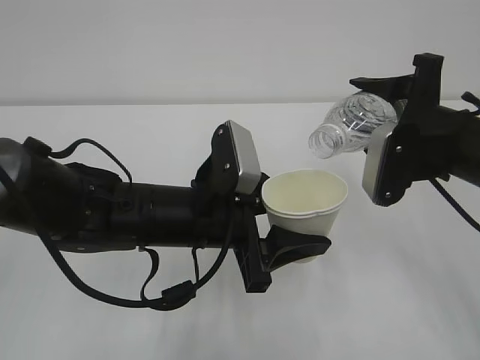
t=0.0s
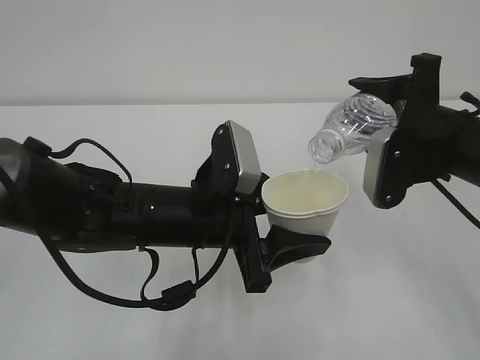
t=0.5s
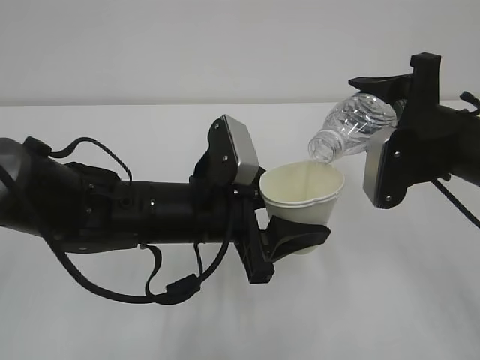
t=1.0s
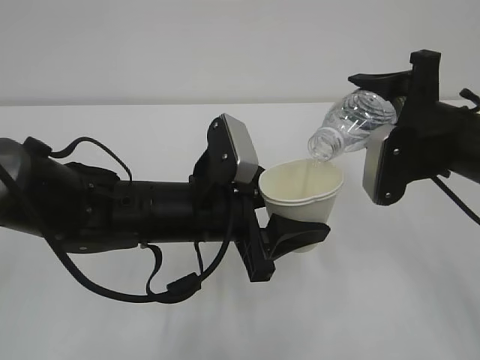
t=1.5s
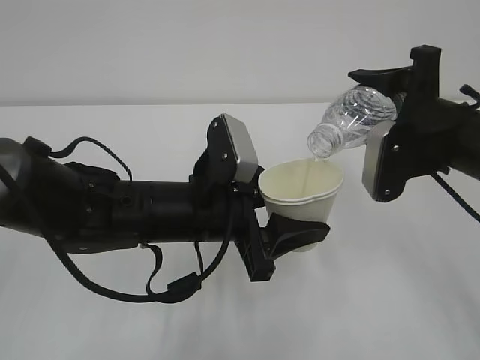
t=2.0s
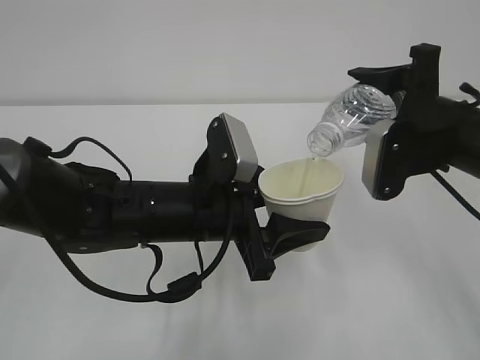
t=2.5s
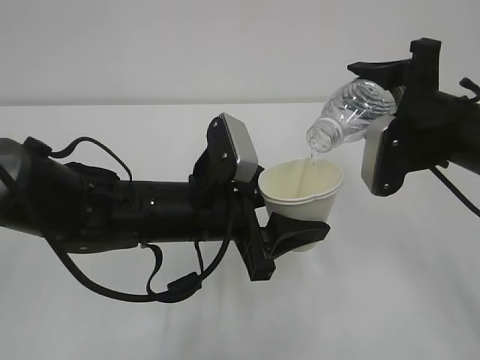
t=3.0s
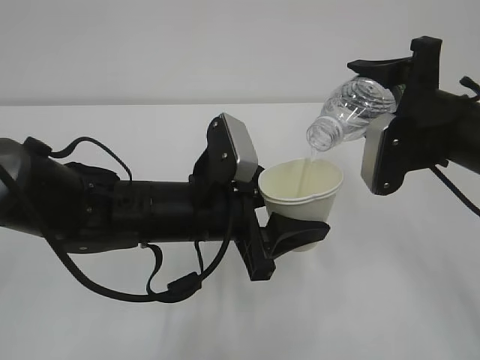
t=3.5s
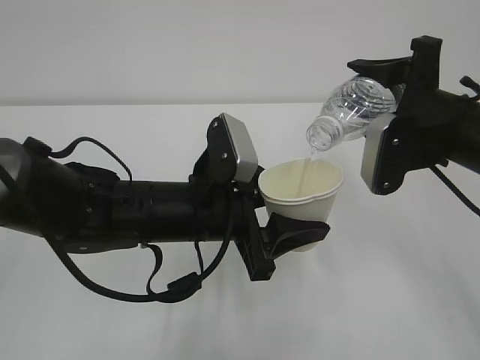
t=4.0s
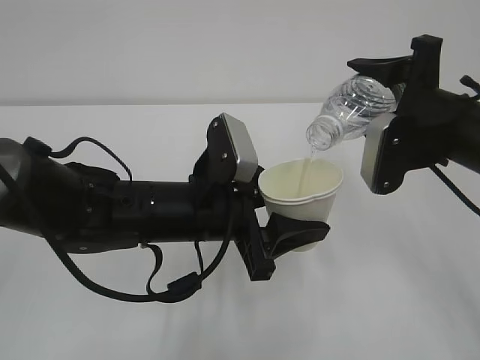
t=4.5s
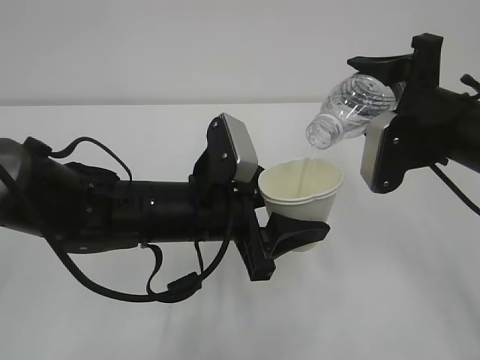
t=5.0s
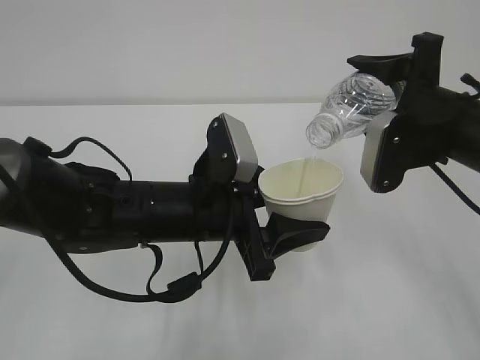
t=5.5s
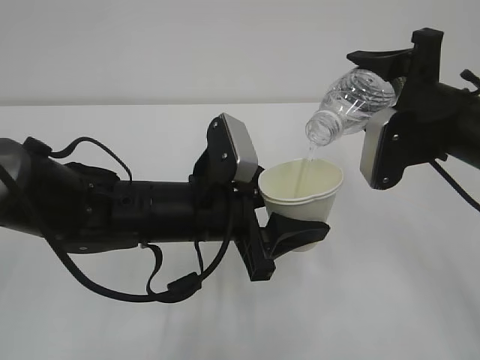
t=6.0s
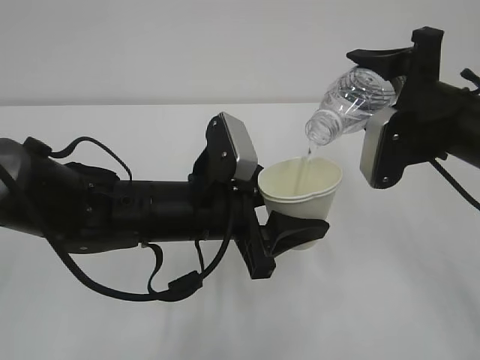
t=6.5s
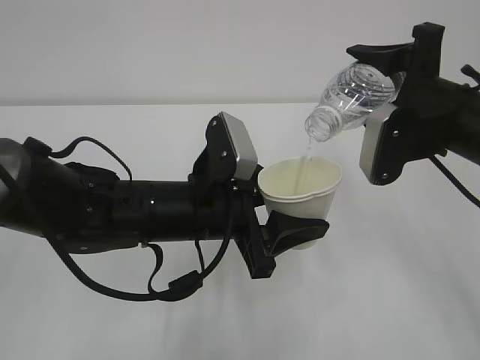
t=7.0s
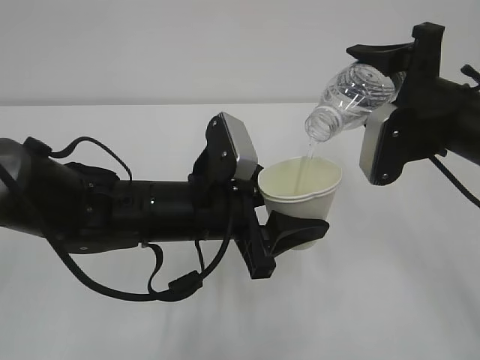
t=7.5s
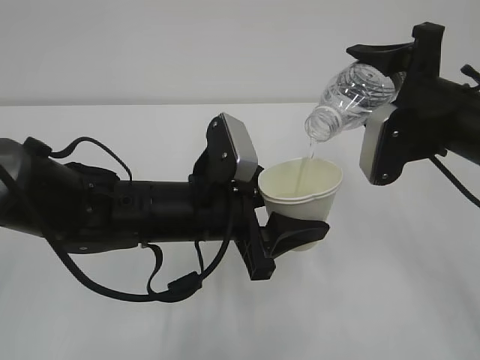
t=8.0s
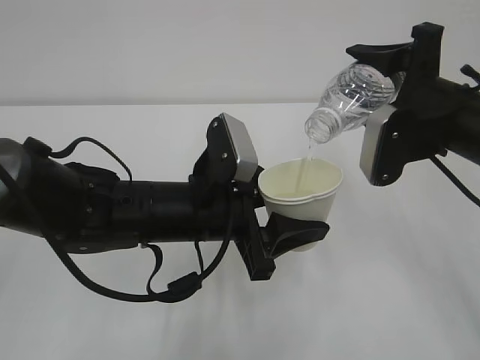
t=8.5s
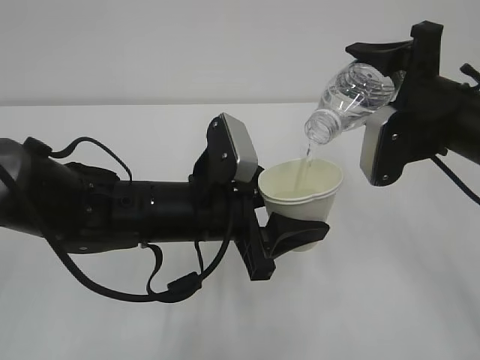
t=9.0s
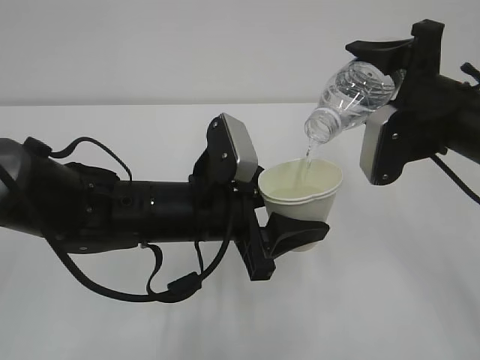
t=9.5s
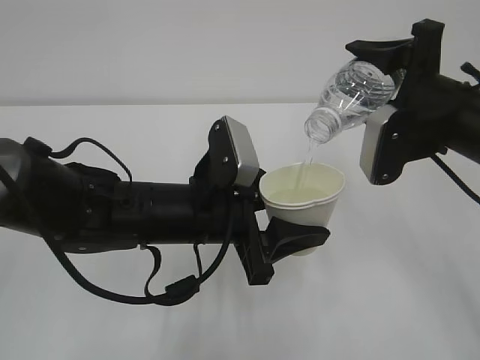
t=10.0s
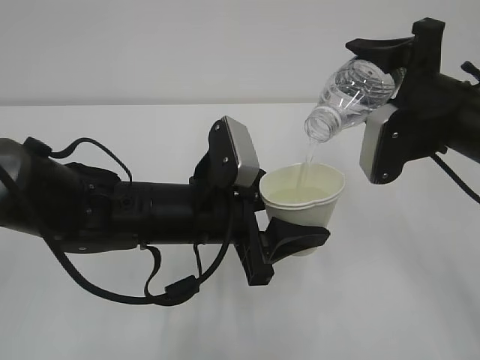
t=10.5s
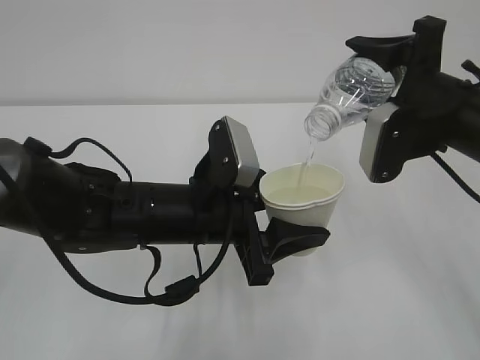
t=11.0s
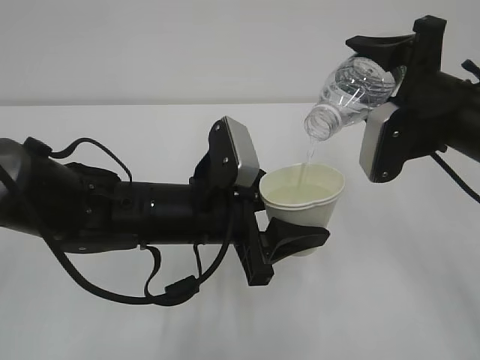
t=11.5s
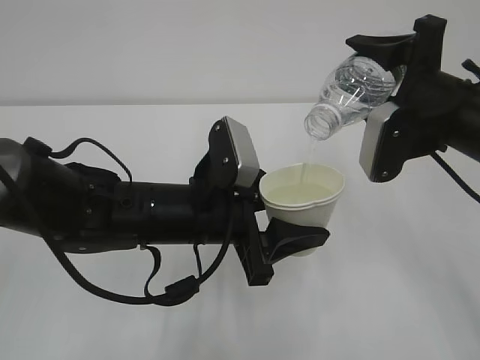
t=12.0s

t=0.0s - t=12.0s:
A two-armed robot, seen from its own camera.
t=0.0s - t=2.0s: The two grippers keep their place.
t=2.0s - t=6.0s: Both grippers stay about where they are.
t=6.0s - t=10.0s: Both grippers stay put.
t=10.0s - t=12.0s: Both grippers stay about where they are.

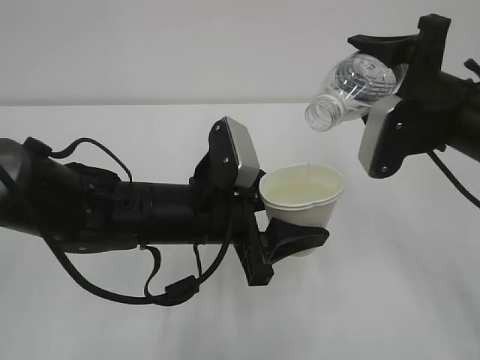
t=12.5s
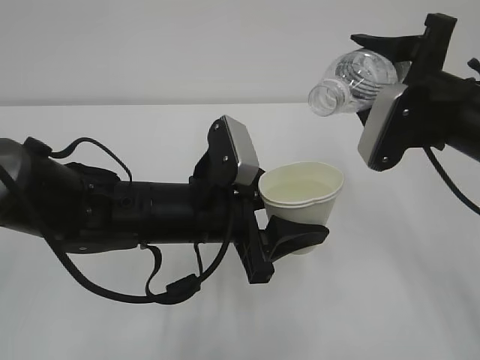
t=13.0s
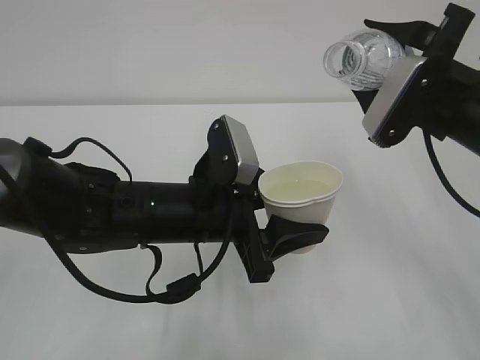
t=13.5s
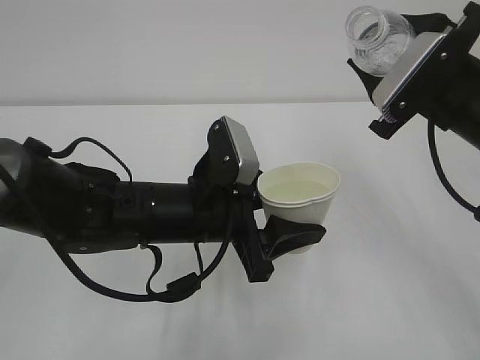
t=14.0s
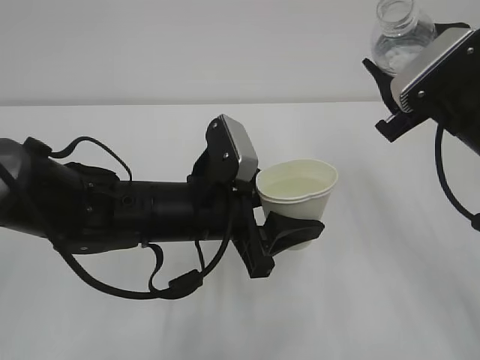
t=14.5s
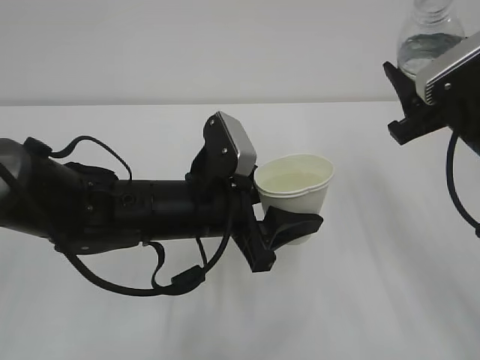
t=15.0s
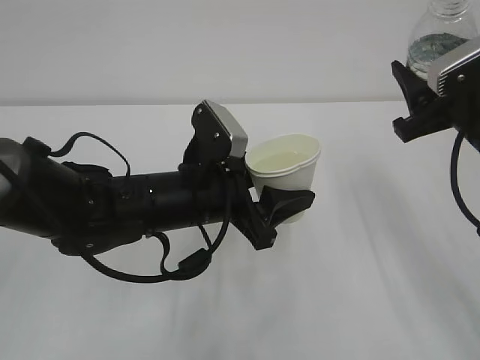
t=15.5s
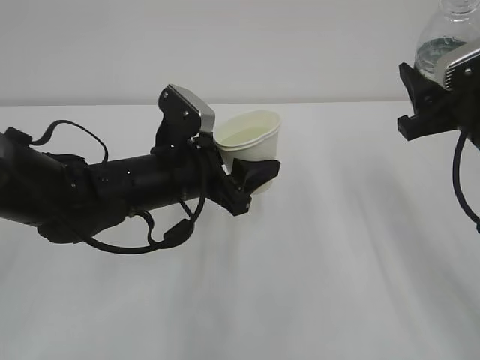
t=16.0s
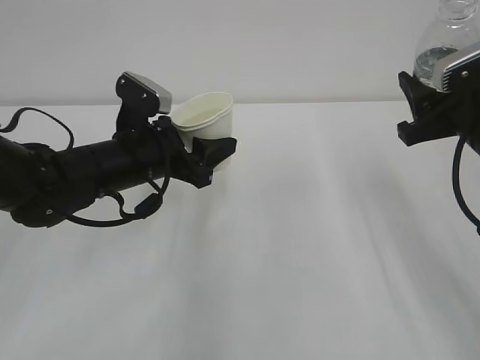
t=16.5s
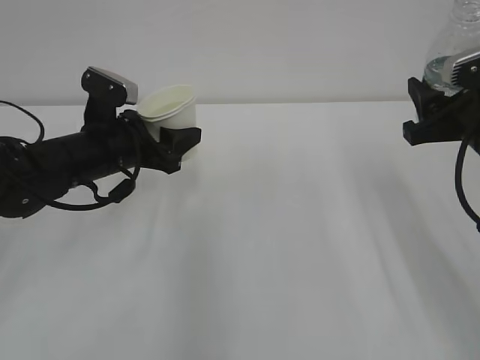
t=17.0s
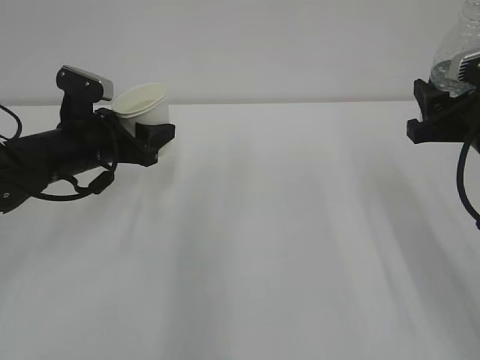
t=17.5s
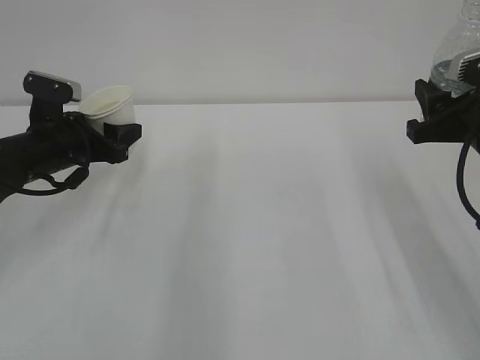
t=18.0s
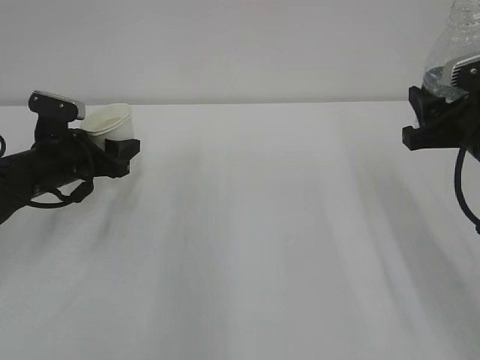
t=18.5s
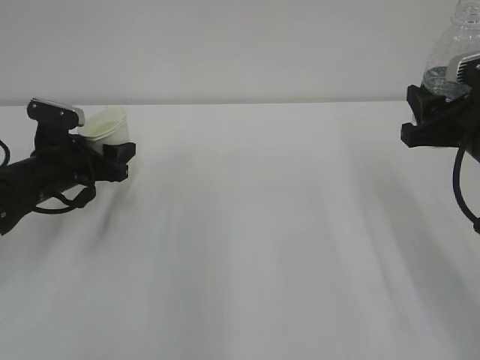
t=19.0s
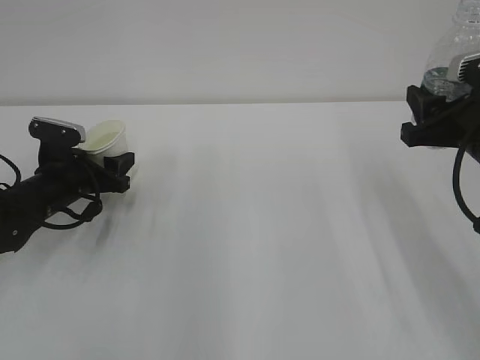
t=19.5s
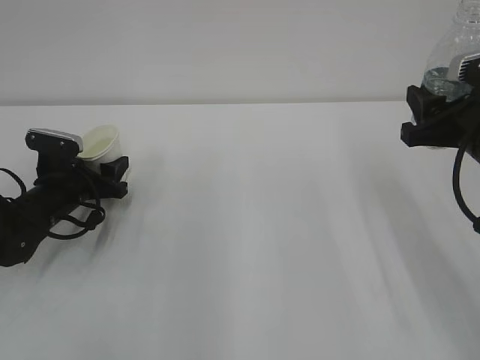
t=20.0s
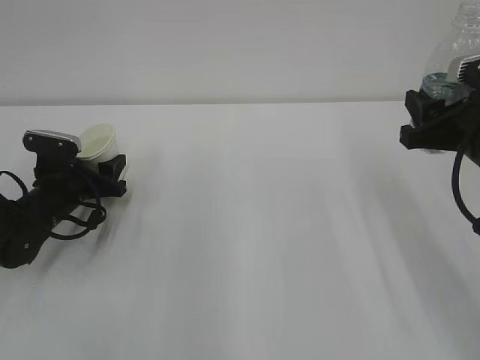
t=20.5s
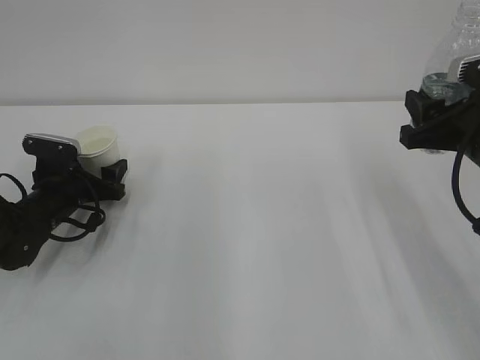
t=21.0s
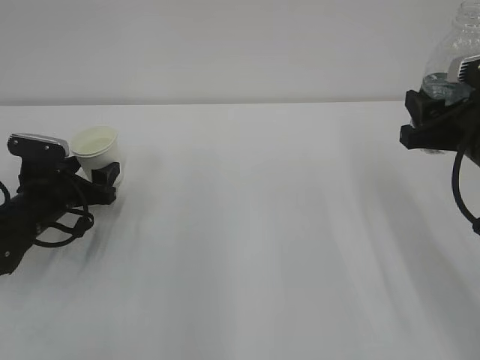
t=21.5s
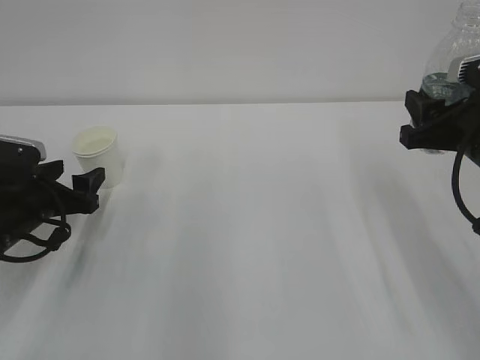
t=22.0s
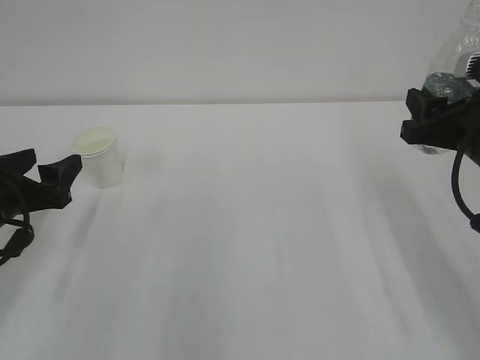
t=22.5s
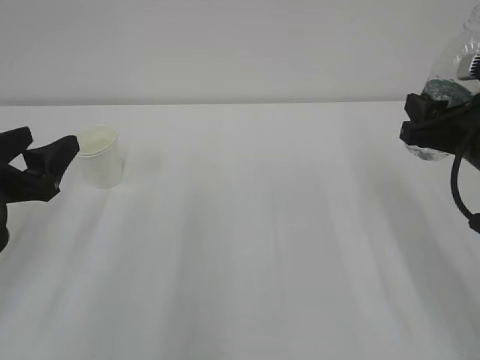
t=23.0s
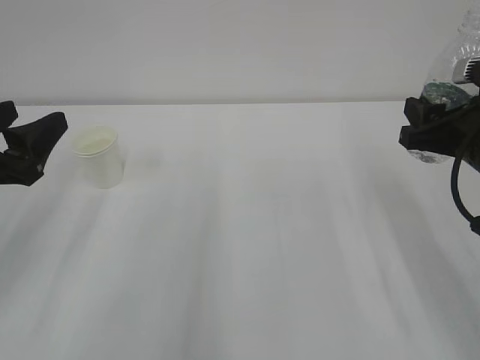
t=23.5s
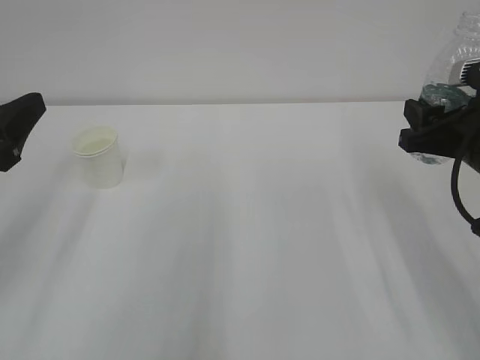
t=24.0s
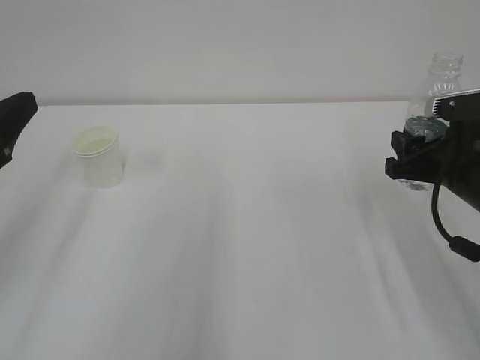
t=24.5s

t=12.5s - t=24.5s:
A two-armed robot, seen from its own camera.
t=14.5s - t=16.5s: The left gripper is displaced to the left and forward by roughly 10 cm.
t=16.5s - t=18.5s: The left gripper goes approximately 10 cm to the left.
t=18.5s - t=20.5s: The left gripper heads downward, covering approximately 5 cm.
t=20.5s - t=22.5s: The left gripper travels backward and upward by approximately 15 cm, and opens up.
t=22.5s - t=24.5s: The left gripper shifts some 10 cm upward and backward.

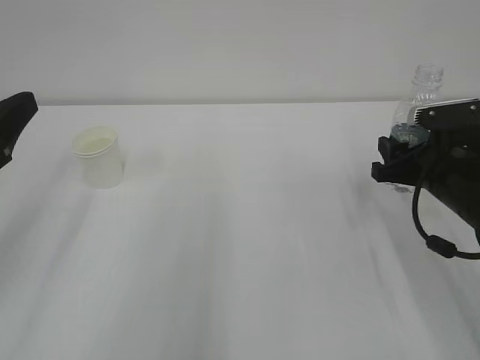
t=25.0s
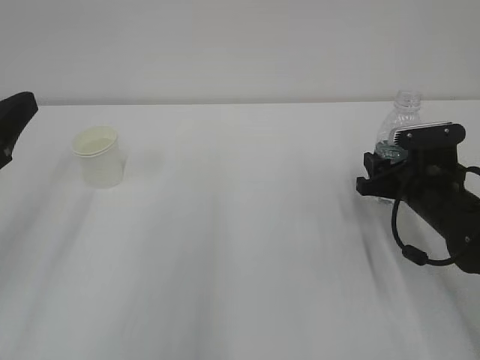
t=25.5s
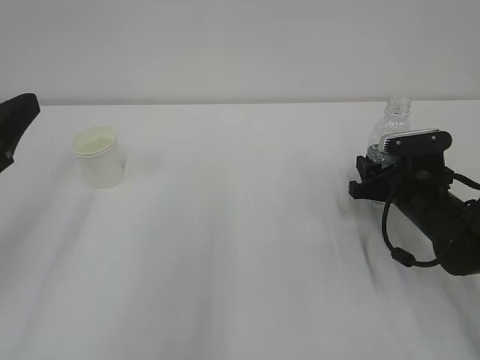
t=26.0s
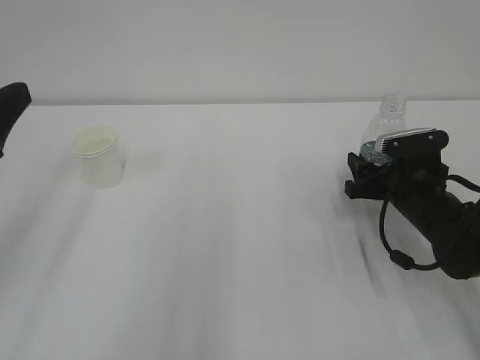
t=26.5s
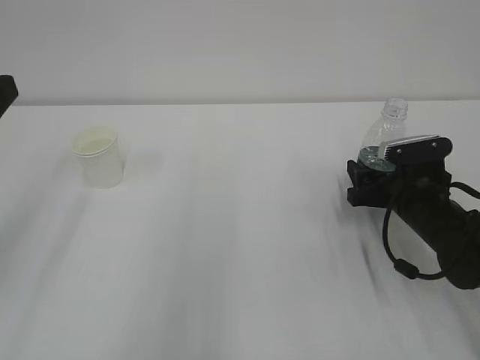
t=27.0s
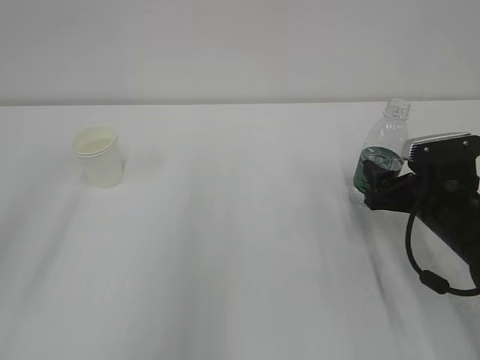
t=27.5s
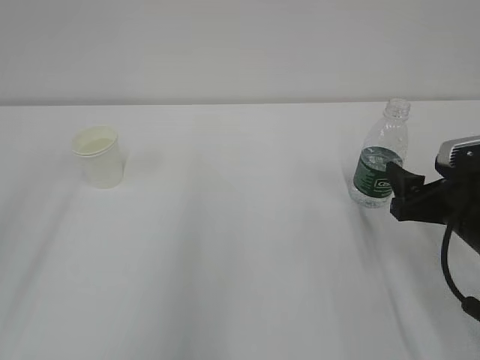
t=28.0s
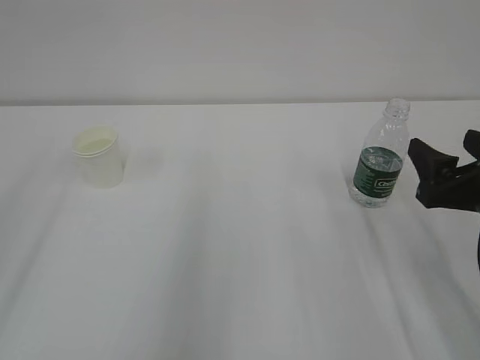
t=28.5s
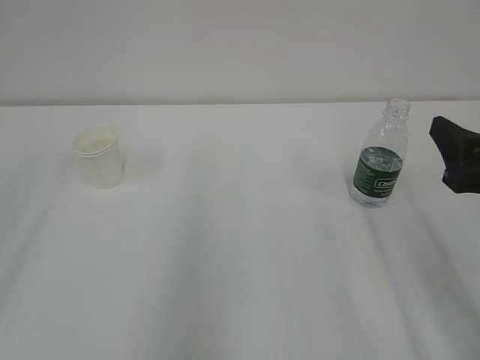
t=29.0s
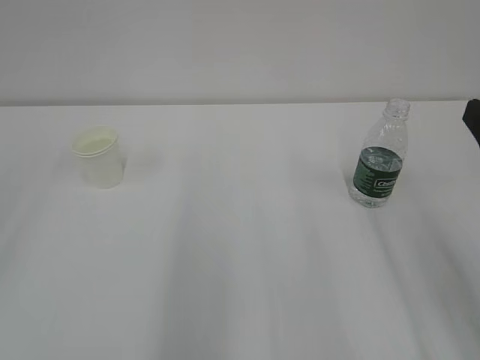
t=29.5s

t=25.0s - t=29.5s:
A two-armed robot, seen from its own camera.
t=25.0s - t=27.0s: The right gripper is displaced downward by approximately 5 cm, and opens up.
t=27.0s - t=29.5s: The right gripper heads upward and backward, covering approximately 25 cm.
